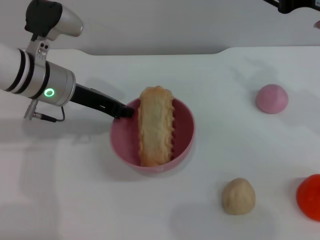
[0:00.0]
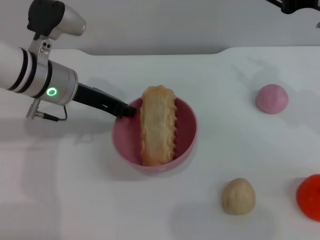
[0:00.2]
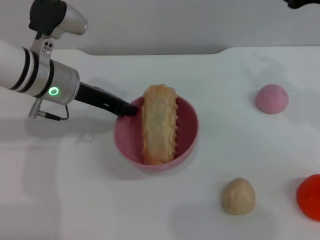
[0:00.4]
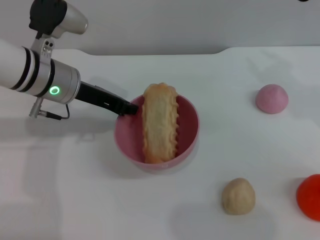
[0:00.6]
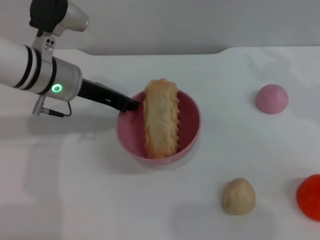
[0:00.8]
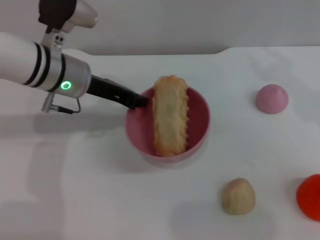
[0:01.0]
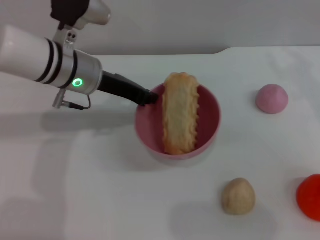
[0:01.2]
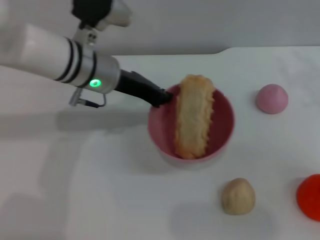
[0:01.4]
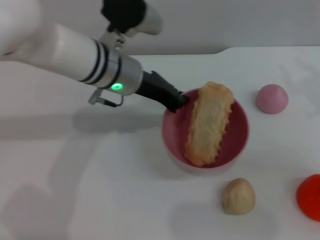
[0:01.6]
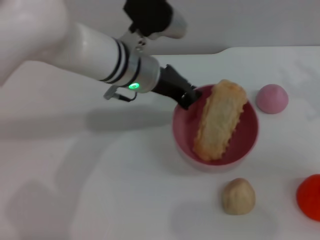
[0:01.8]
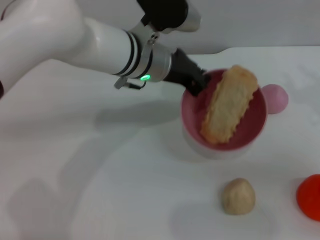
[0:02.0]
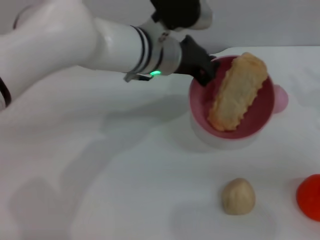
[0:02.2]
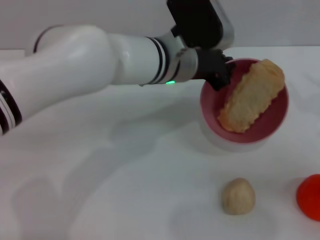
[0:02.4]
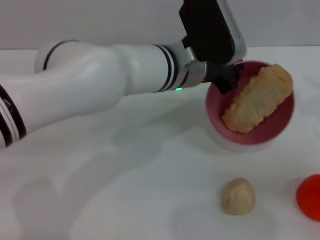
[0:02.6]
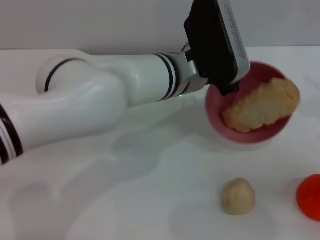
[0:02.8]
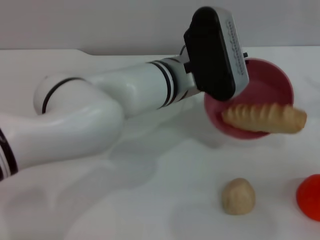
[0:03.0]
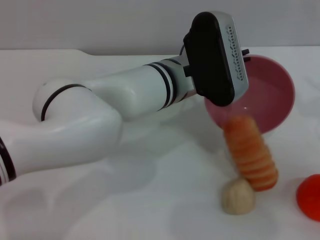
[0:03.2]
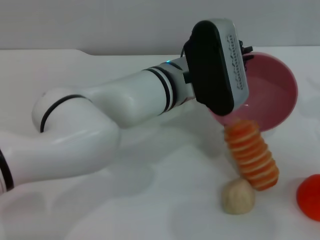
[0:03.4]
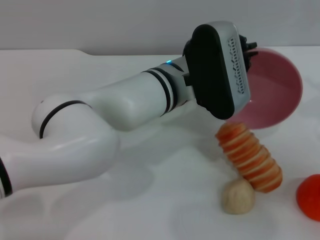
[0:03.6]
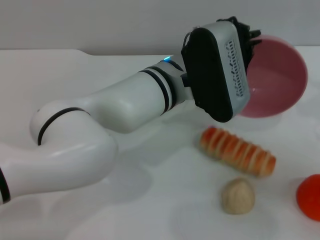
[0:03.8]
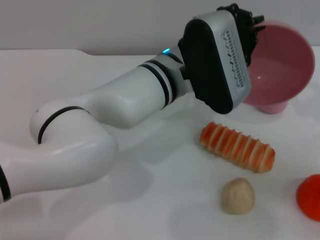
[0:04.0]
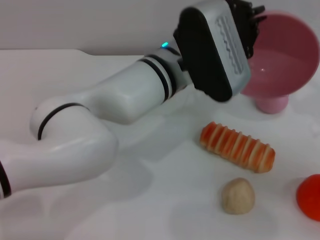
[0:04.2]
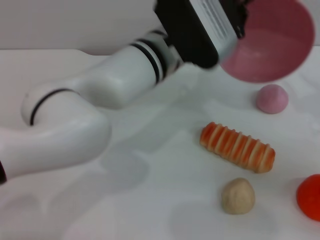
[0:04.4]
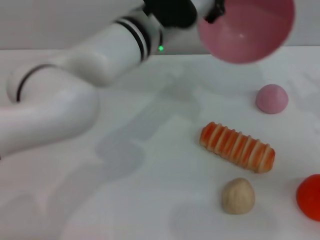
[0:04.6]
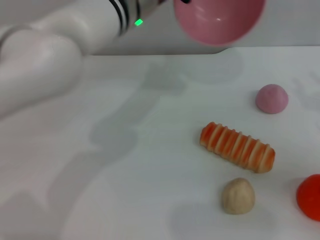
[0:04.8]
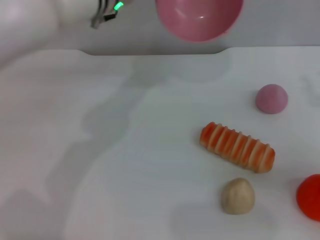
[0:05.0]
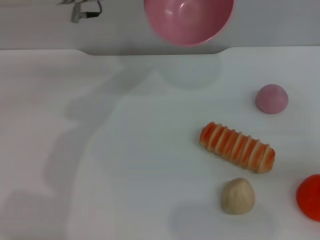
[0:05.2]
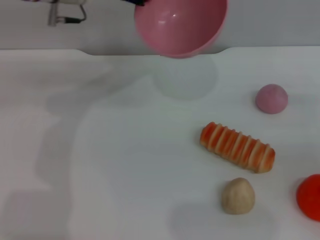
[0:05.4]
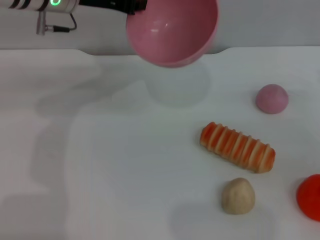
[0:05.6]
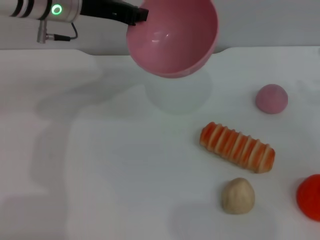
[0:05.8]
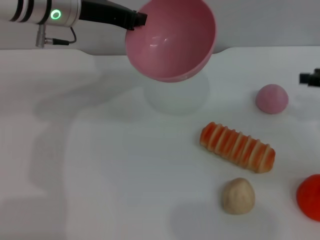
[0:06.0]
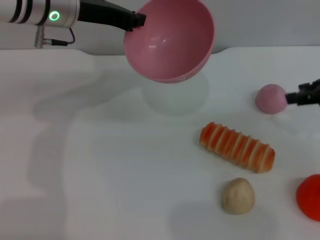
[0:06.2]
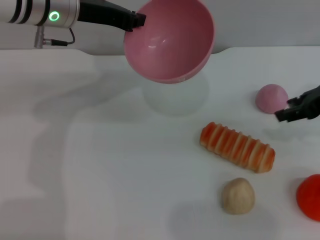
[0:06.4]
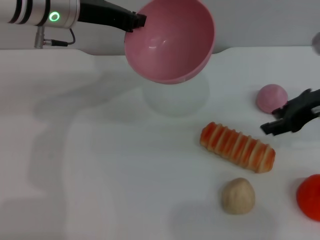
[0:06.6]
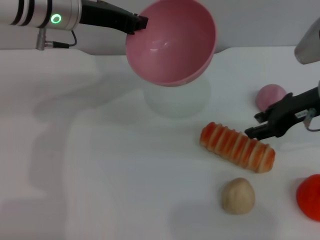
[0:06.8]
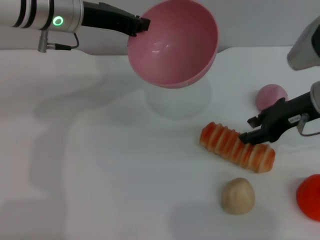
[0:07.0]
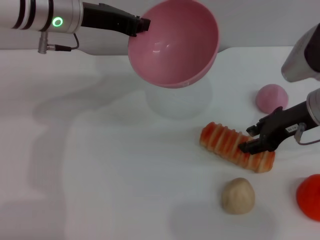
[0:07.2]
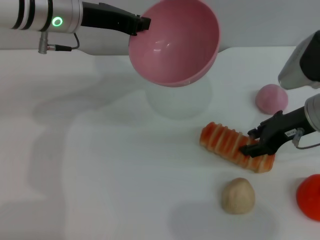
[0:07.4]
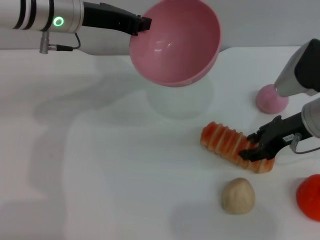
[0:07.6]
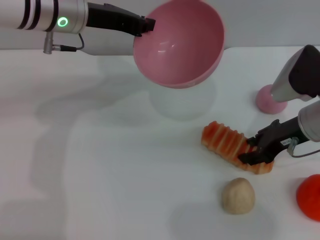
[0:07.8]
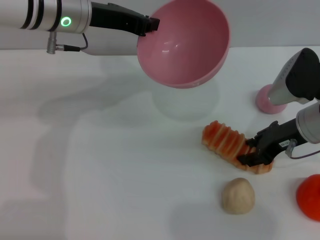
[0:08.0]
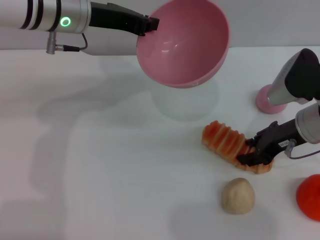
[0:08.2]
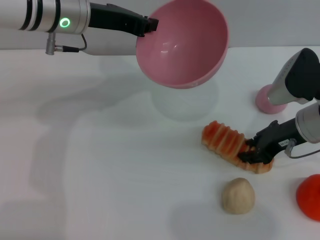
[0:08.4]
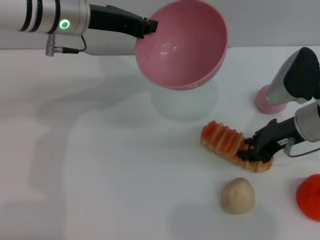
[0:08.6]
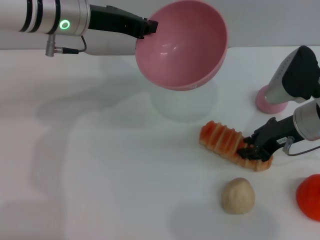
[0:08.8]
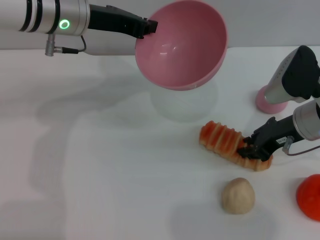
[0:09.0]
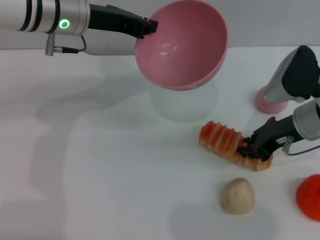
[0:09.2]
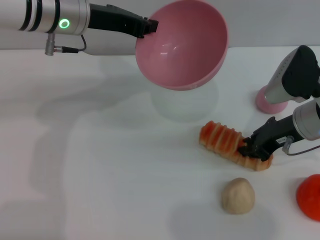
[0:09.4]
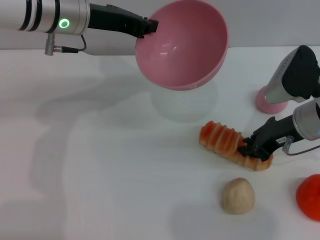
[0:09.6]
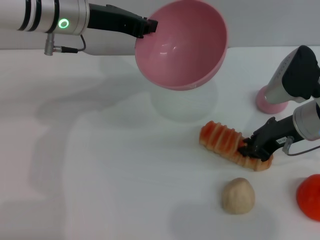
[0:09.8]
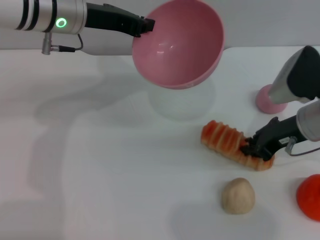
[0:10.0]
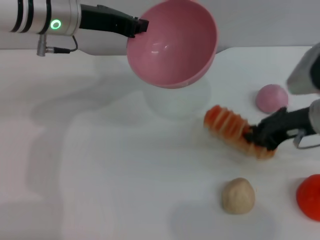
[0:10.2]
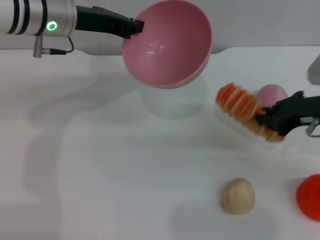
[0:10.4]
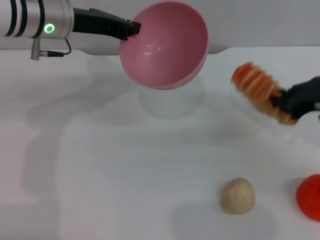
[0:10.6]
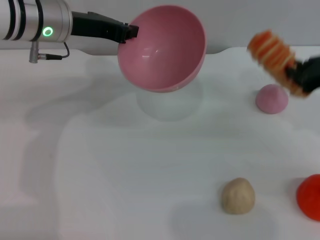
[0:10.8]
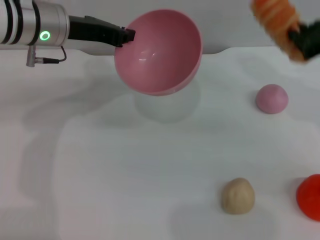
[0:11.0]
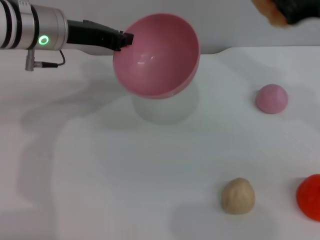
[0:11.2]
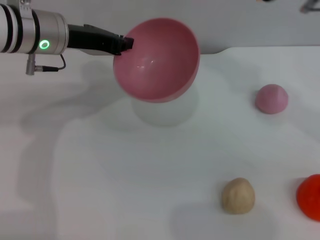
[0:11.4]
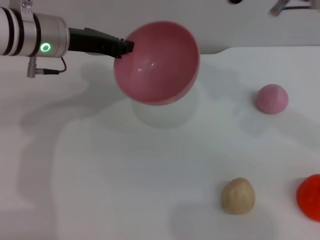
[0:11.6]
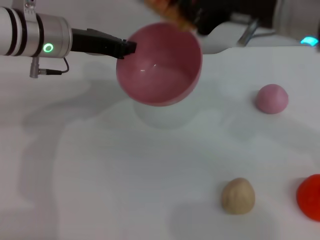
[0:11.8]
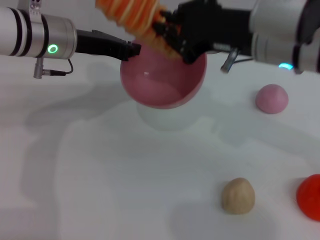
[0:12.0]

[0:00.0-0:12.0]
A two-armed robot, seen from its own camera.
Task of the whole recording: put the bread into the pink bowl and pour it out repeatedly.
Step, 0:00.0 to 0:03.6: Pour the bread out of the bowl.
Step, 0:03.8 to 0:10.4: Pick up the bread with the right gripper.
0:00.0 to 0:01.6: The two grippers go about 10 cm to the right.
0:01.6 to 0:03.0: The left gripper moves to the right, about 10 cm. The right gripper ends up about 5 cm from where it was.
0:04.4 to 0:06.0: The left gripper heads to the left and forward, covering roughly 15 cm; the right gripper heads forward, covering approximately 5 cm.
0:06.0 to 0:07.6: The right gripper travels to the left by approximately 10 cm.
0:07.6 to 0:09.0: The right gripper closes up.
0:09.0 to 0:10.4: The grippers move only a little.
0:10.4 to 0:12.0: The right gripper heads to the left and upward, covering roughly 15 cm.

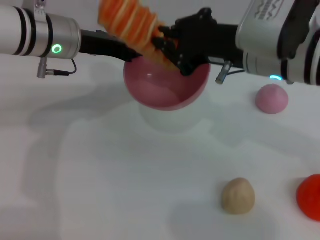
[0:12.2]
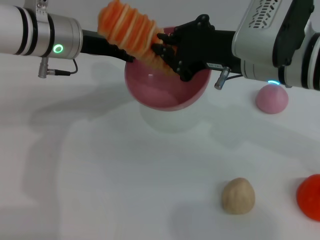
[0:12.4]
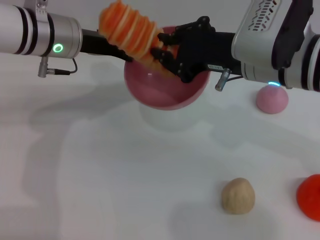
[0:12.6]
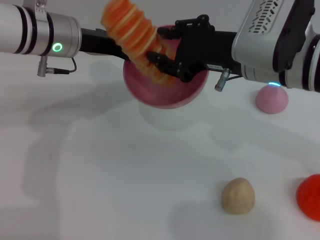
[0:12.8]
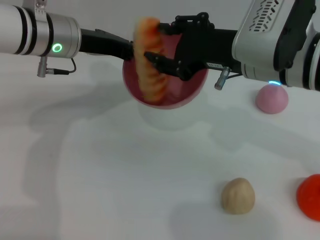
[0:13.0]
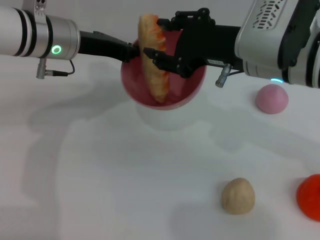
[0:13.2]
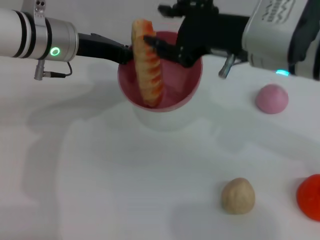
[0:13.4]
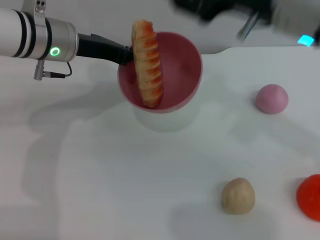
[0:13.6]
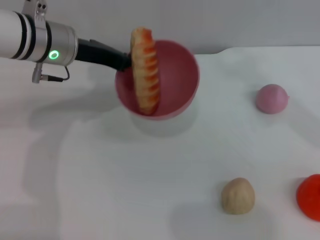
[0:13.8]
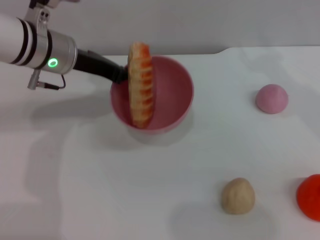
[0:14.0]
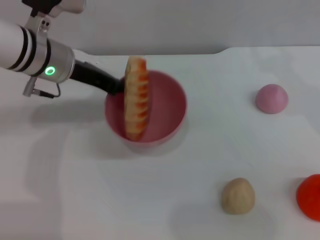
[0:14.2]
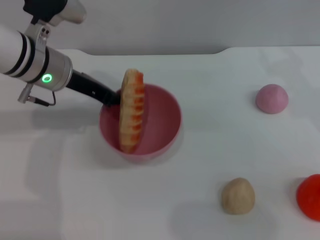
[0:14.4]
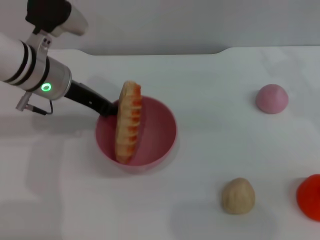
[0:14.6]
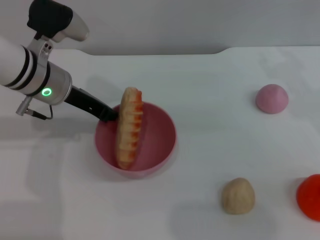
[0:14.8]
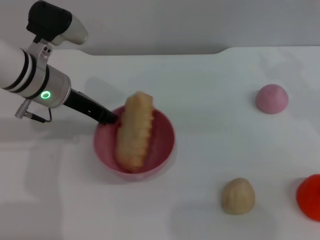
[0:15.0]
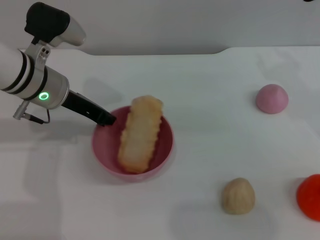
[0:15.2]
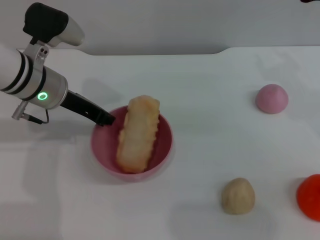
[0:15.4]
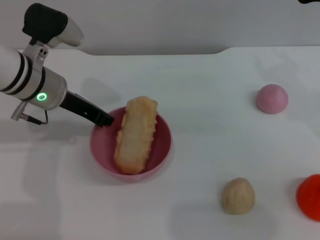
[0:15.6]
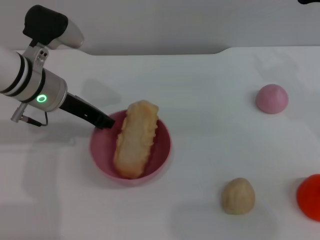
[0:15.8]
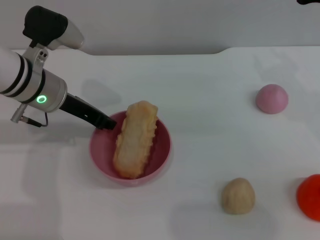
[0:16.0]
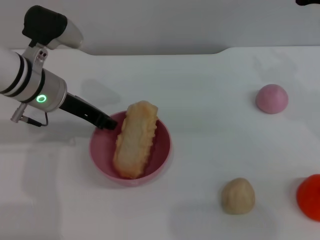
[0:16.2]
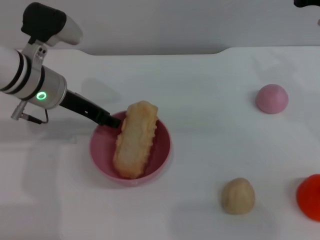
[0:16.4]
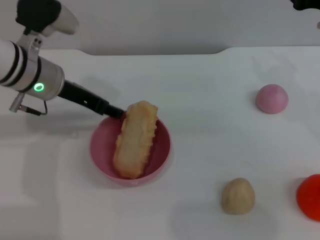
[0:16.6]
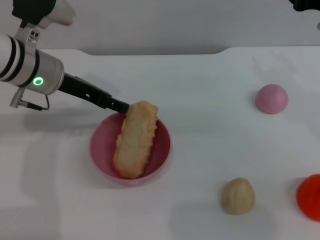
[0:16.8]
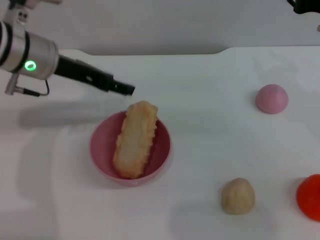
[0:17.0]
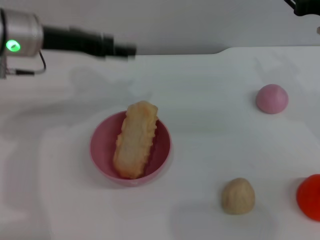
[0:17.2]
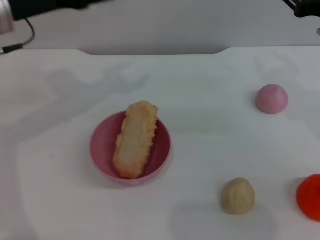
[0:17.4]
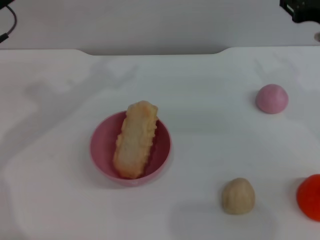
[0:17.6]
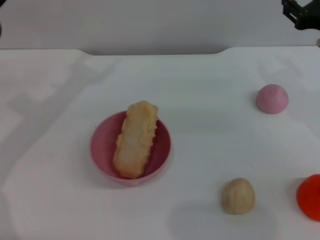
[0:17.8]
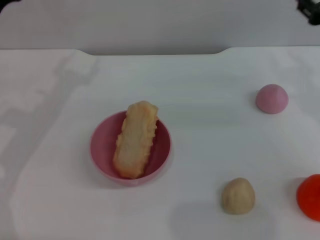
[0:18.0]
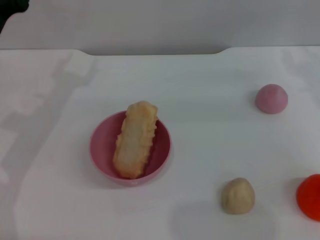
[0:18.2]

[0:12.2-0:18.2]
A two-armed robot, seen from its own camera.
Task of the whole recording: put the bread into the pink bowl and pour it out repeatedly.
Step, 0:13.6 to 0:16.8: Place the bowl on the table.
0:12.2 to 0:13.8: The right gripper goes some 10 cm upward and to the right, and opens.
0:13.8 to 0:15.2: The right gripper heads downward and to the right, covering approximately 10 cm.
0:15.2 to 0:16.6: The left gripper opens up.
0:16.6 to 0:18.2: The right gripper travels to the right by some 5 cm, while the left gripper is displaced to the left by approximately 5 cm, and moves some 5 cm upward and comes back.
